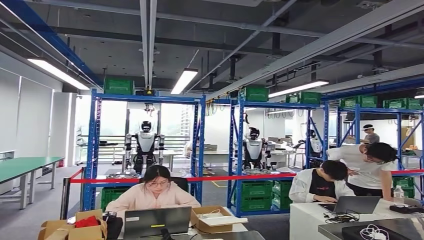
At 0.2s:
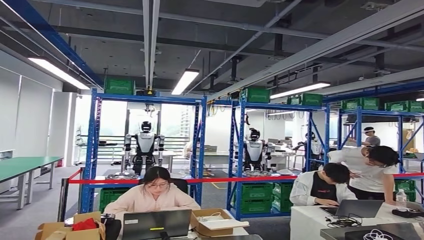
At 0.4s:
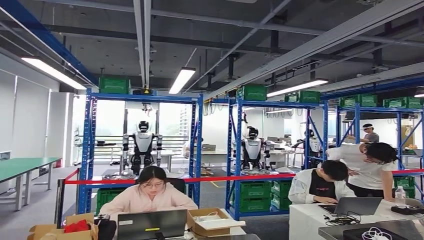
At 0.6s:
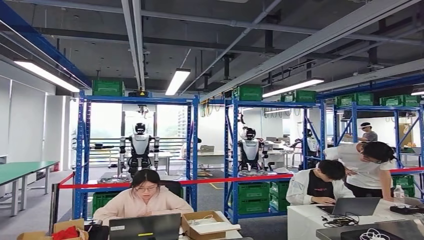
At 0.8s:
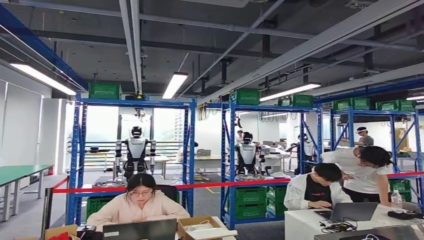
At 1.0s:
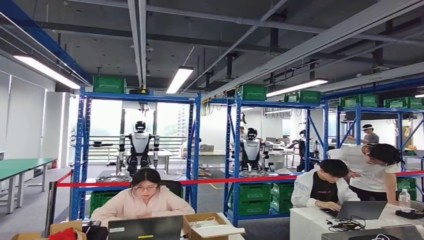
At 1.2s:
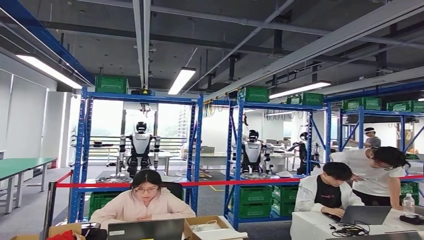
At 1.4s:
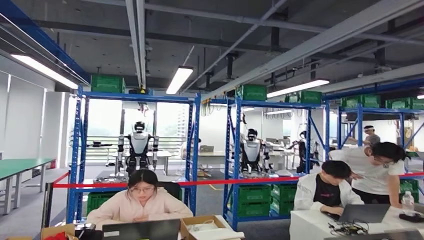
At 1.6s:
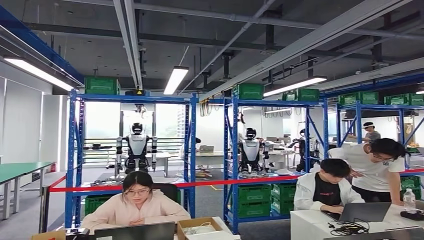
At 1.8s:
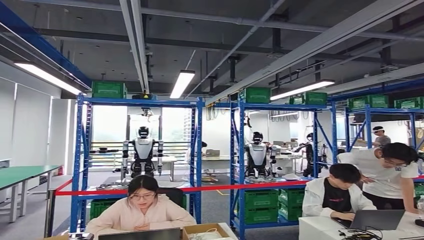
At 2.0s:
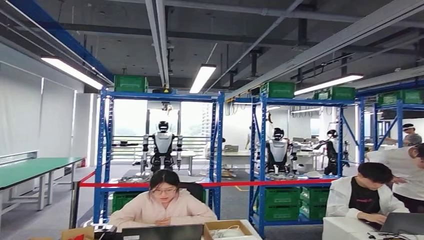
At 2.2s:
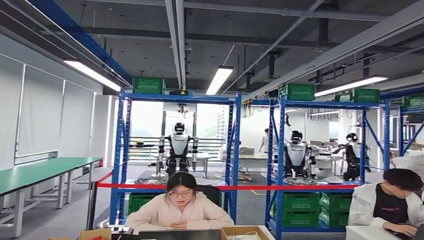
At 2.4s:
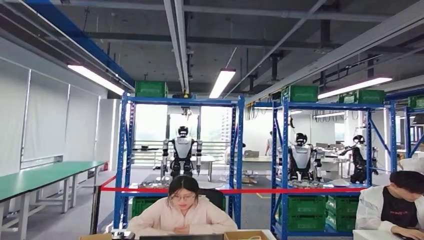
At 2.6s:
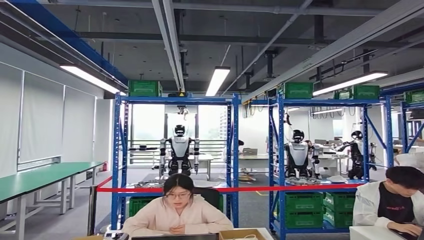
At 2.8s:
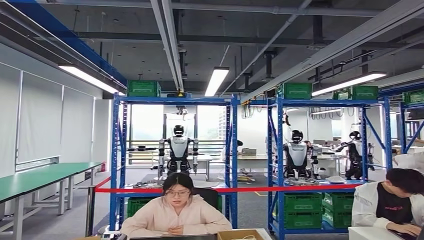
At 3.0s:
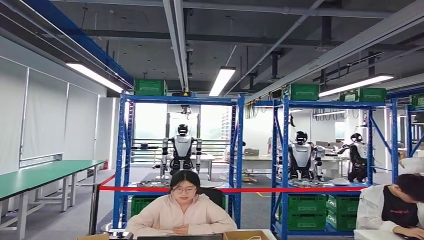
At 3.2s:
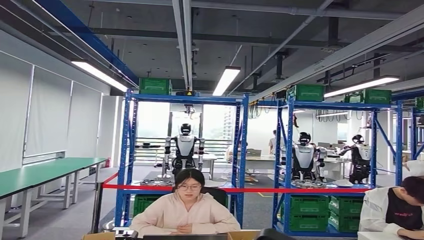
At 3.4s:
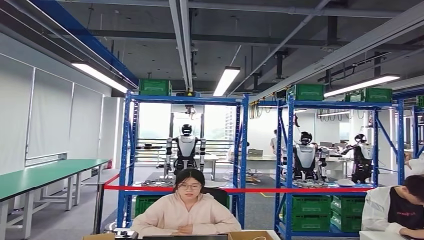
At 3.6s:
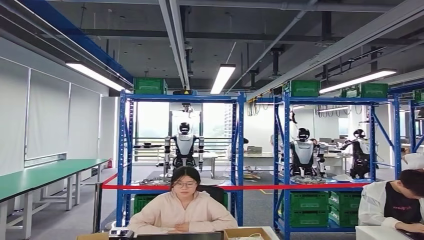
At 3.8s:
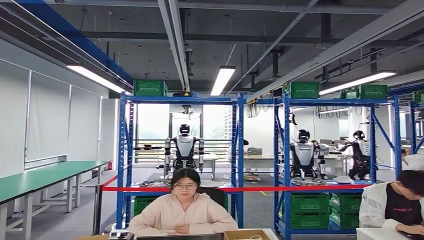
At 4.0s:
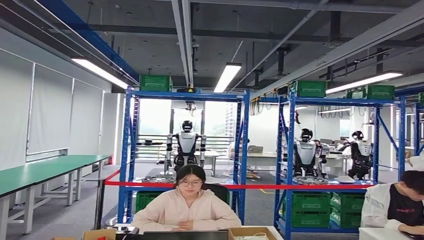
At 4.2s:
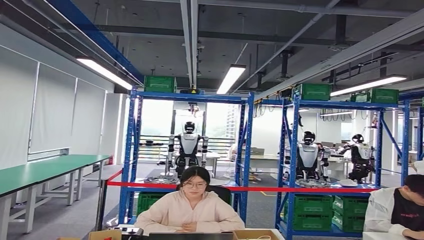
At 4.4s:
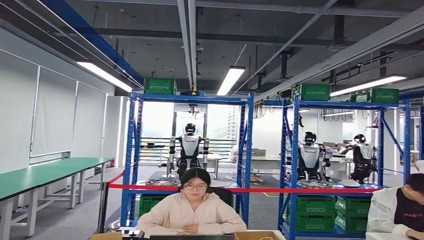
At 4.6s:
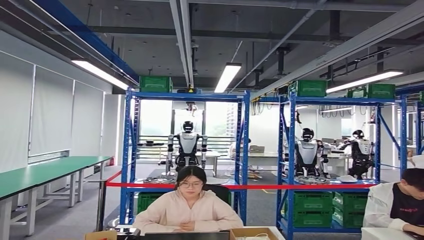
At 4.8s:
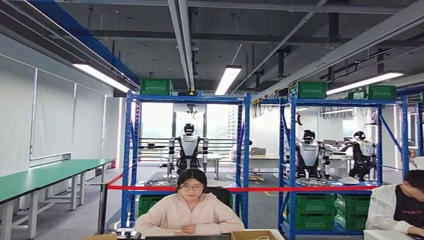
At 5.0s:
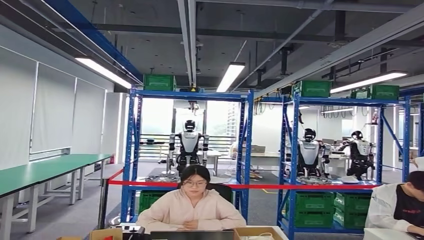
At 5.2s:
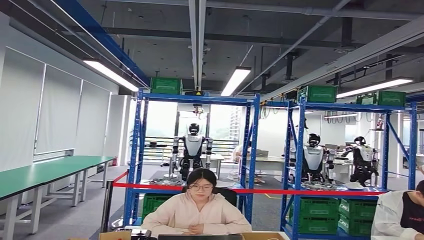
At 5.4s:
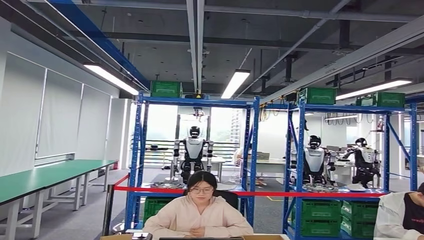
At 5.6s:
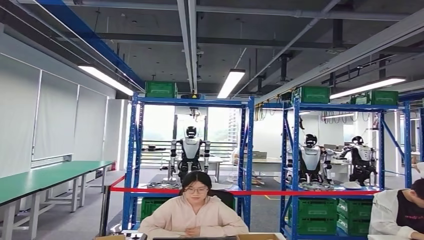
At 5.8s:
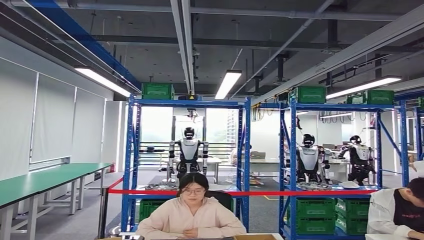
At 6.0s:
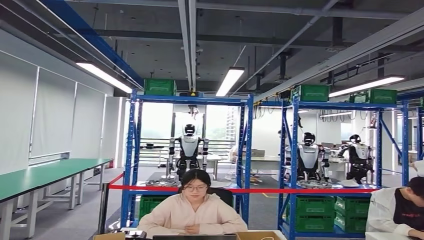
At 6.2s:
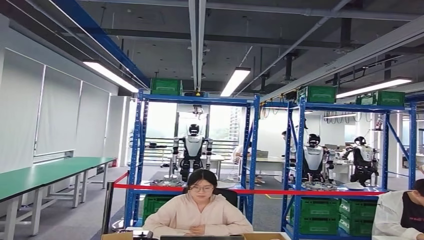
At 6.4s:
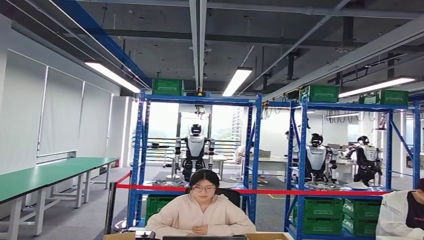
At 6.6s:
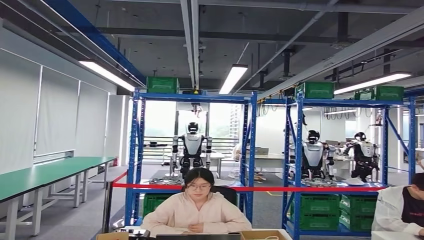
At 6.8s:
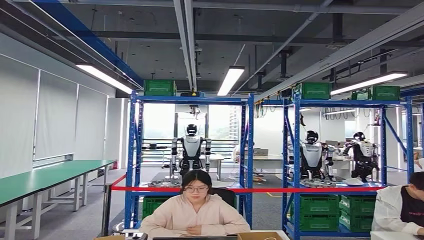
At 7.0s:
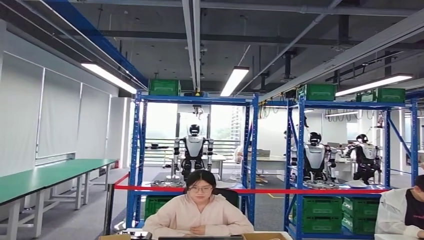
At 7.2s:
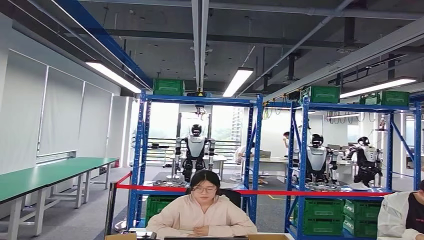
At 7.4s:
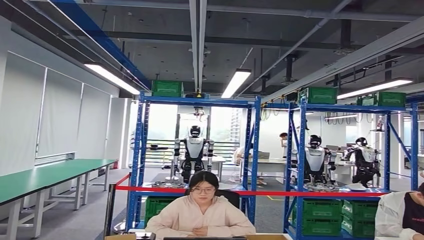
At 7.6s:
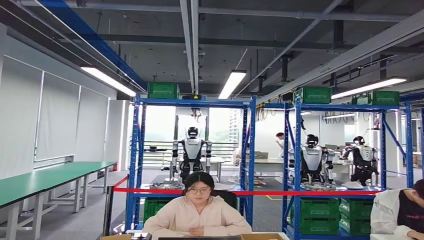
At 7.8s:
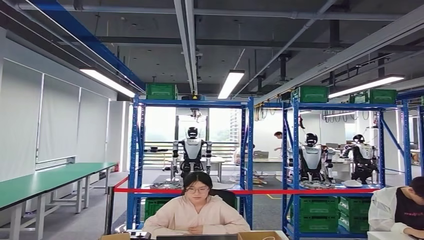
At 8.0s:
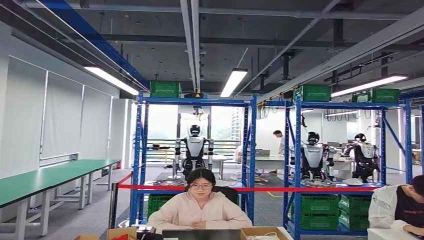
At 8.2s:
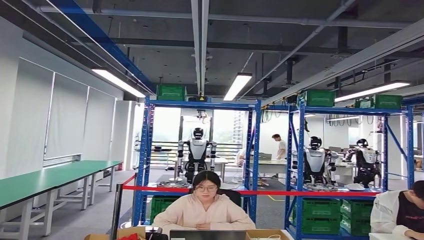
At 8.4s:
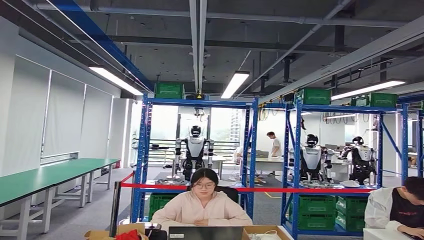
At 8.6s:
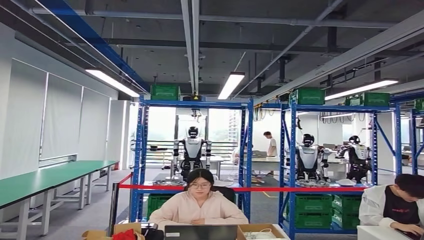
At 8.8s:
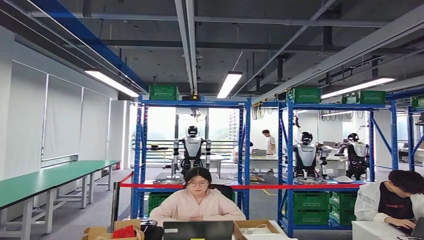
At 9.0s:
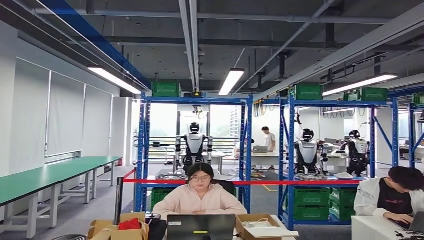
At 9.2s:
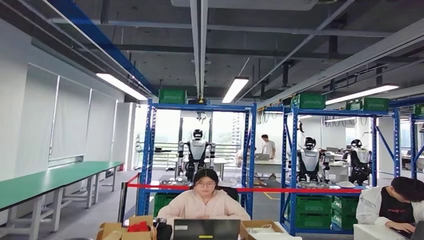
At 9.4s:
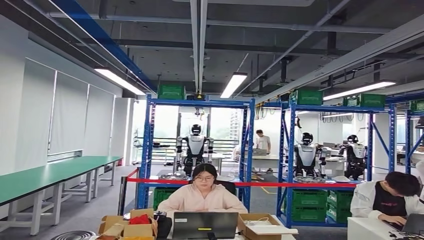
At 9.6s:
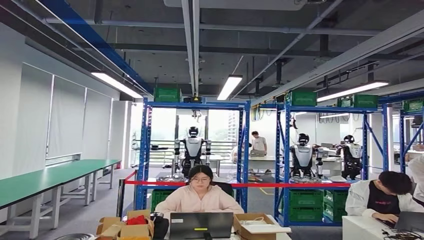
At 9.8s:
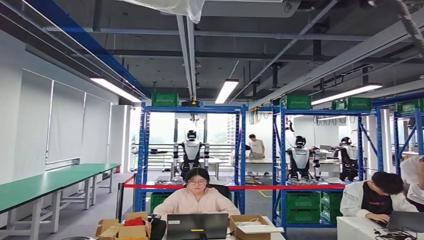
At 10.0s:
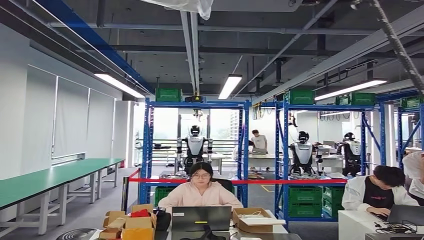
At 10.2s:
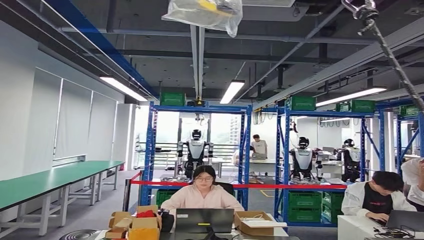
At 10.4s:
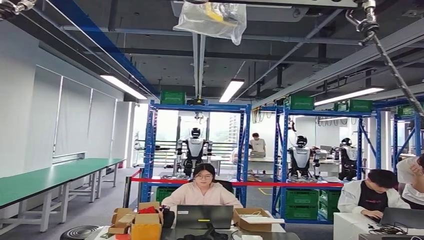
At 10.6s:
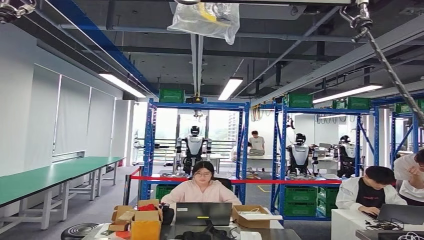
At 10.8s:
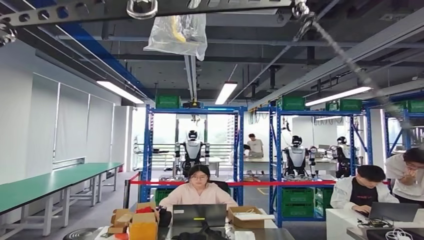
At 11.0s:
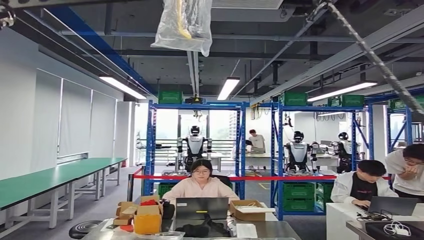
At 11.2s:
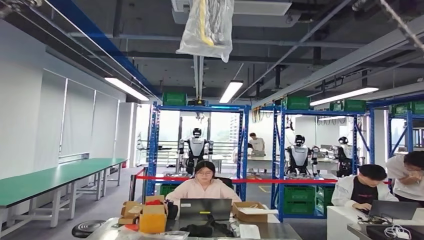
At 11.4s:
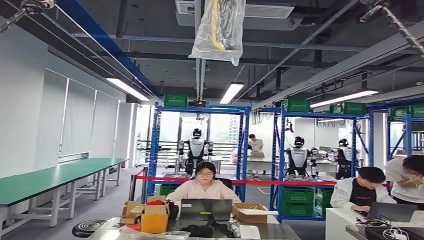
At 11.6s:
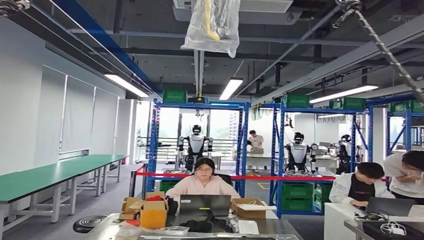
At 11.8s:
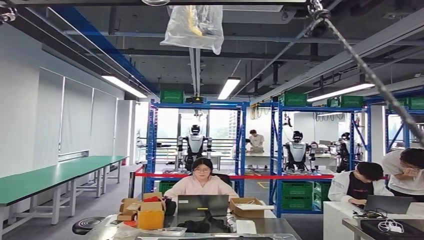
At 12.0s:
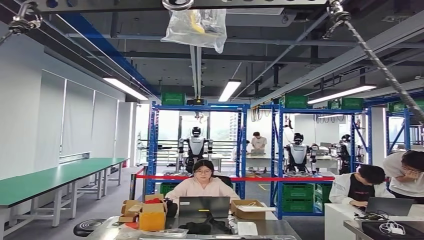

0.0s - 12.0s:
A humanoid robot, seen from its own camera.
Step, 0.0s - 3.2s: Move the small component to the workbench.
Step, 3.6s - 7.0s: Insert the small component into the corresponding slot on the workbench.
Step, 7.4s - 12.0s: Return to the initial position at the workbench.
4.4s - 6.0s: The right hand is displaced downward and forward by approximately 10 cm.

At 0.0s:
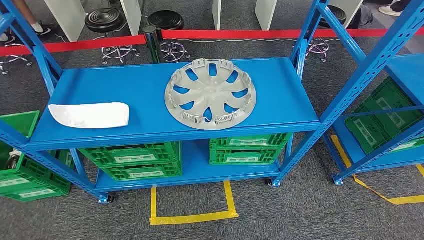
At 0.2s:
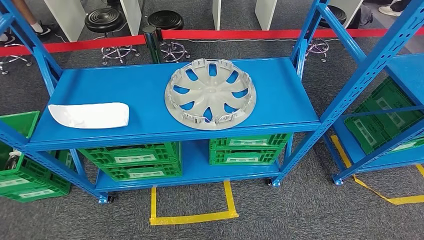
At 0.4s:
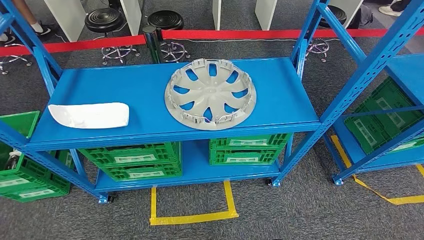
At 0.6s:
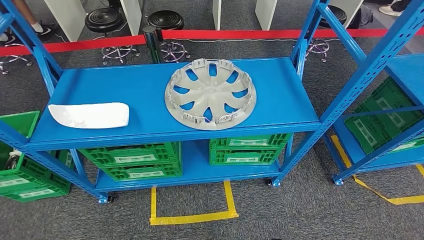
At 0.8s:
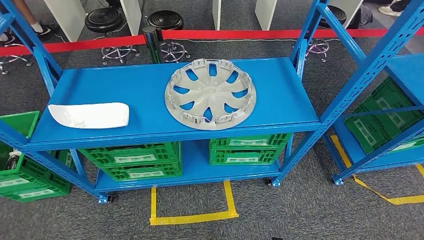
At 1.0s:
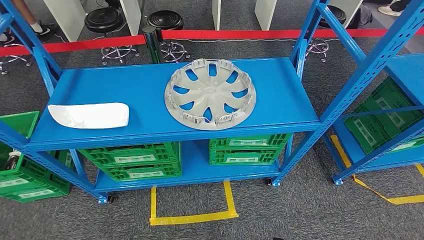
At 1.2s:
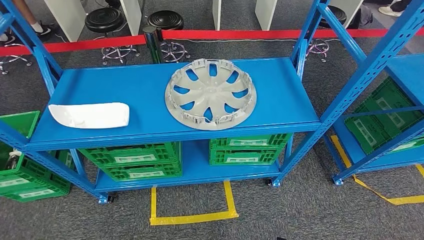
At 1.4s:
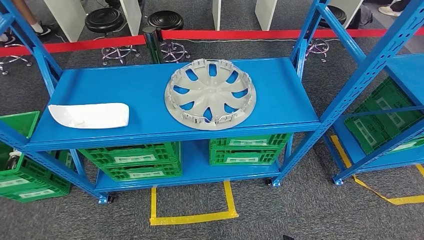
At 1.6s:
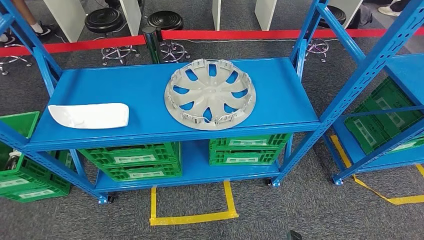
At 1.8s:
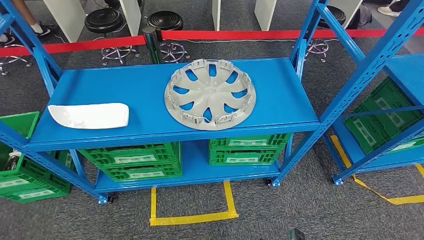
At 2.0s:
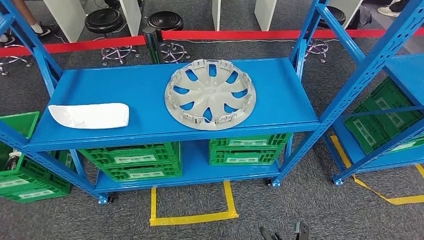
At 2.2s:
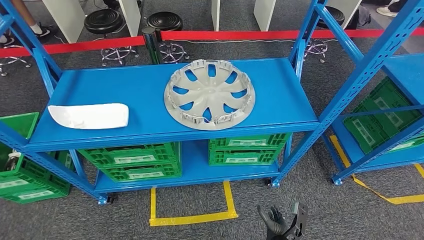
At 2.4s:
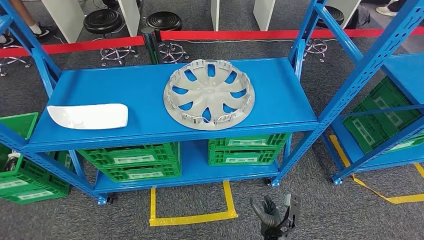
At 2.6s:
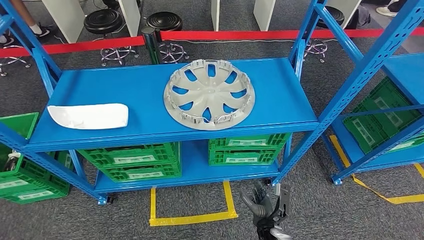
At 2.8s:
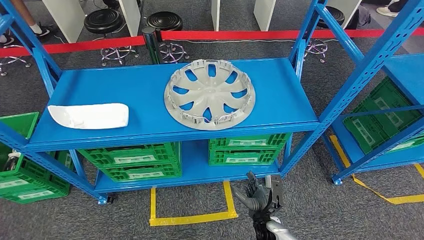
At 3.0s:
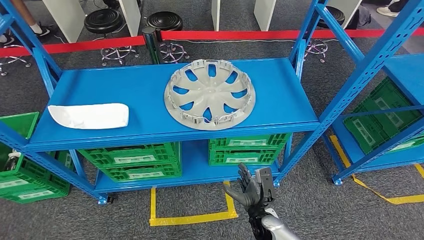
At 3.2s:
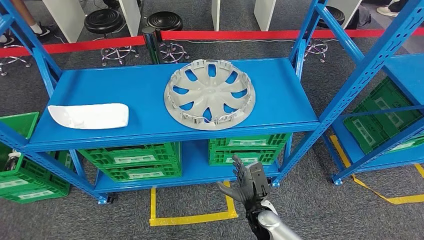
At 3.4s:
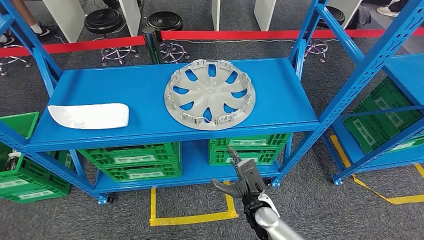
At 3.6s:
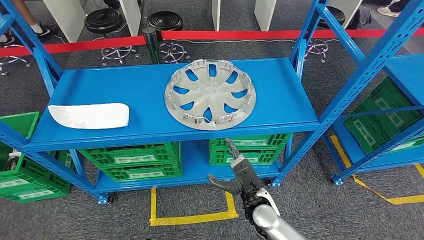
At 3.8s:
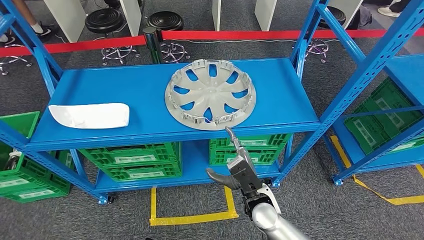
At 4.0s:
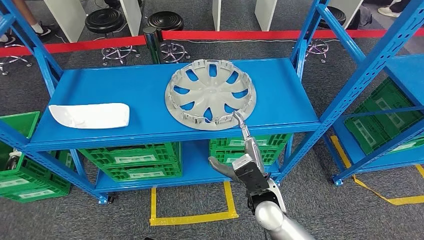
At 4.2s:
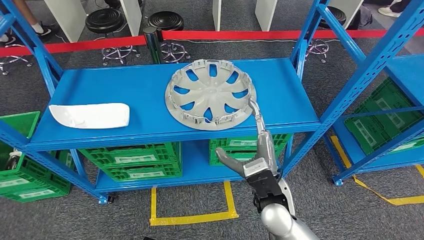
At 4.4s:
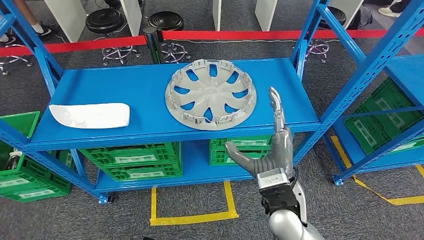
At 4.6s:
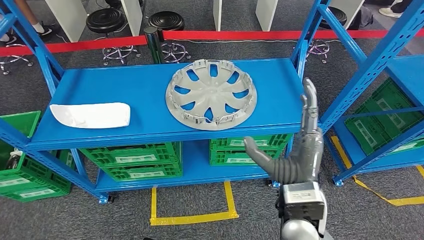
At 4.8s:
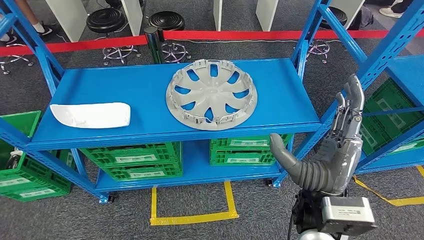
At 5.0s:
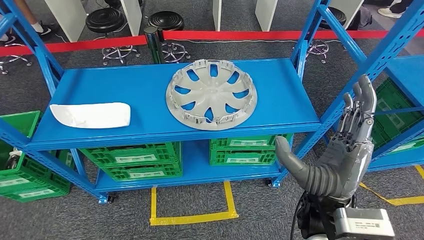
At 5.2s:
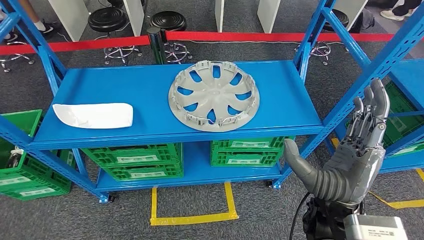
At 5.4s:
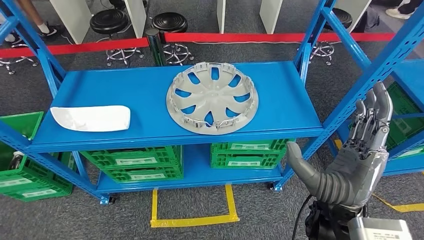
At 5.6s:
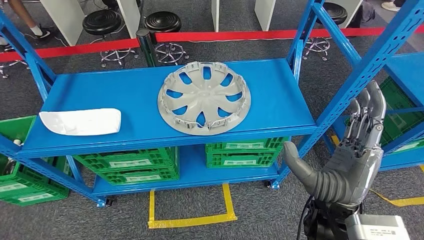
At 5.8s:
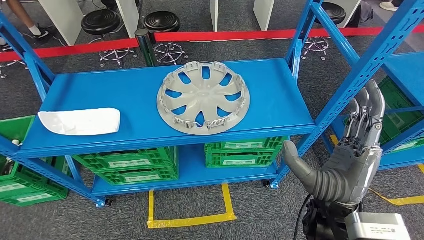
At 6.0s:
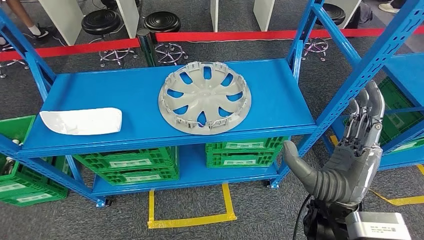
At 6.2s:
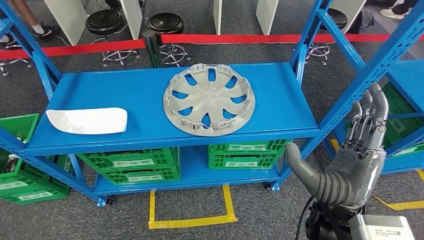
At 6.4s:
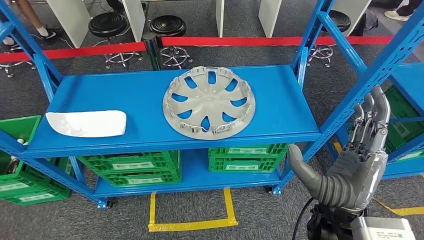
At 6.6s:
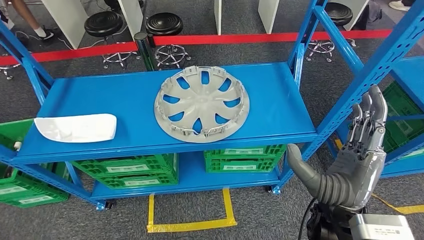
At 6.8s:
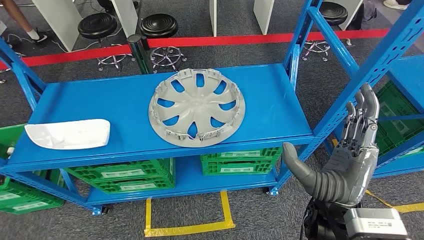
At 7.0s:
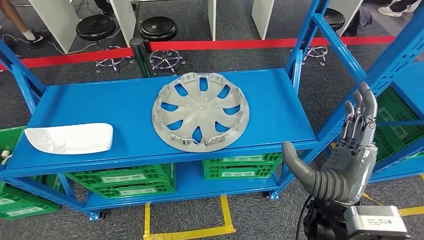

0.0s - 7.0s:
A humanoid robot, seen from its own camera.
1.4s - 2.8s: The right hand heads forward and upward, covering roughly 15 cm.
2.8s - 4.2s: The right hand goes some 20 cm upward.
